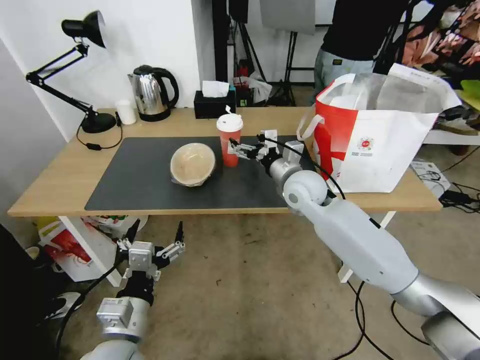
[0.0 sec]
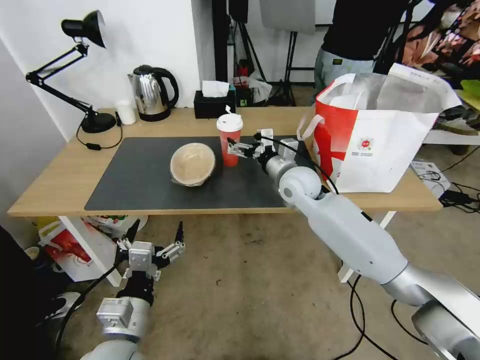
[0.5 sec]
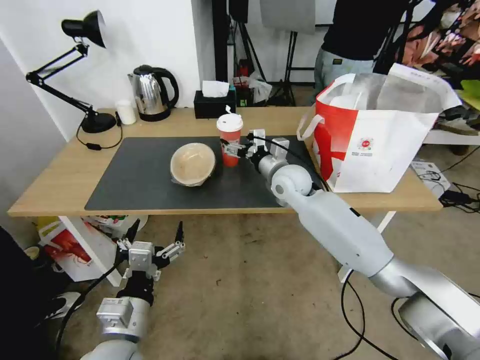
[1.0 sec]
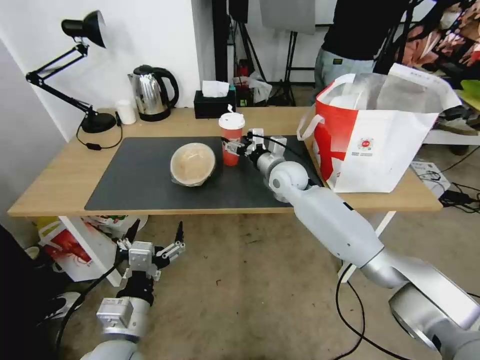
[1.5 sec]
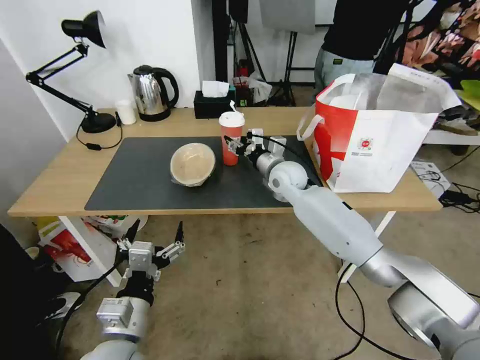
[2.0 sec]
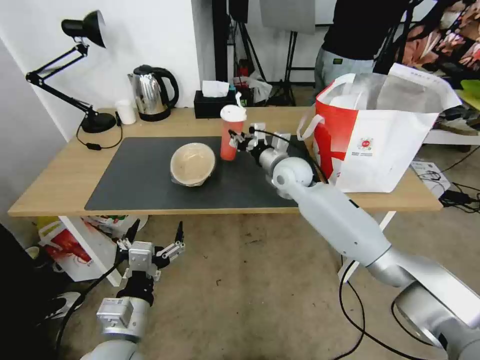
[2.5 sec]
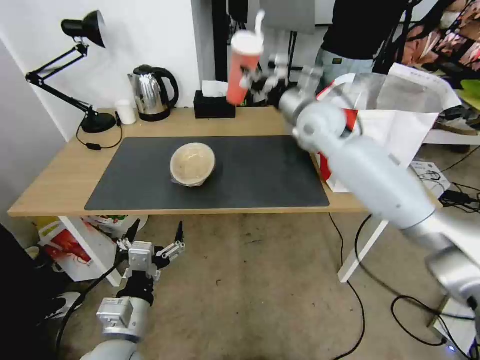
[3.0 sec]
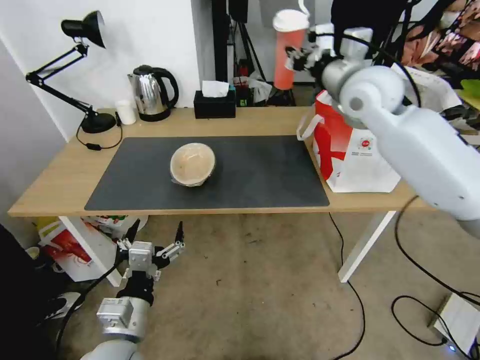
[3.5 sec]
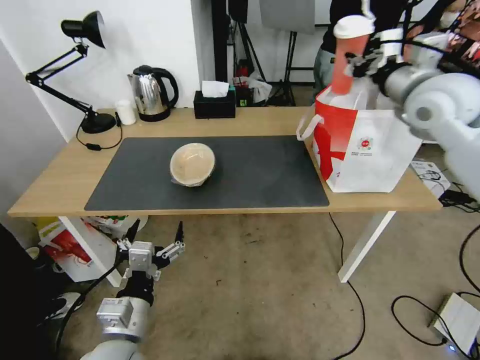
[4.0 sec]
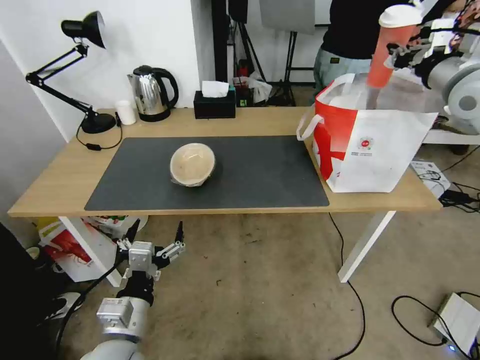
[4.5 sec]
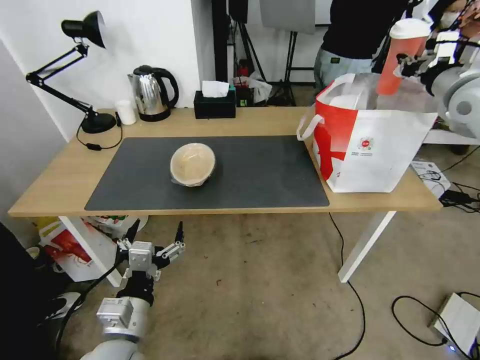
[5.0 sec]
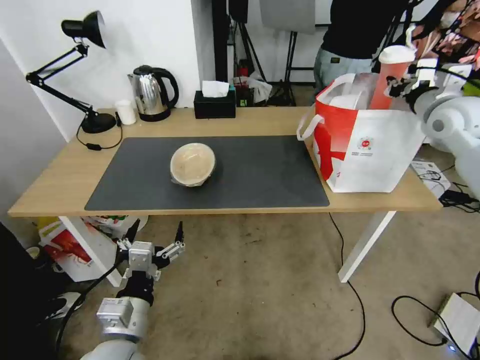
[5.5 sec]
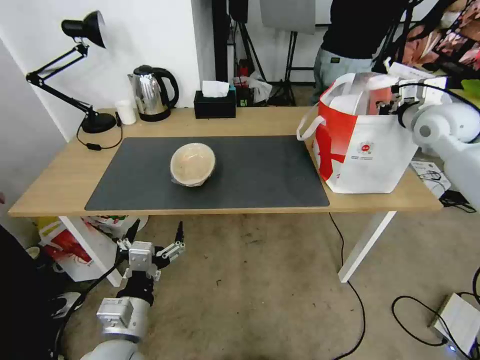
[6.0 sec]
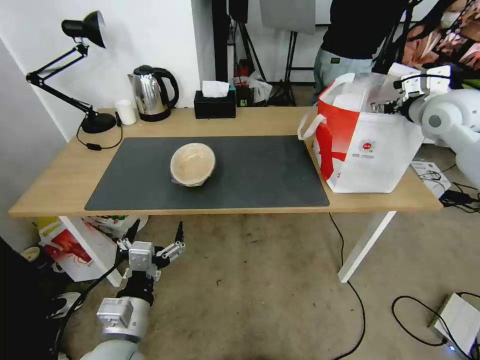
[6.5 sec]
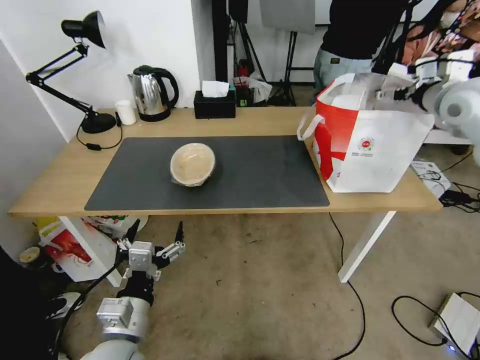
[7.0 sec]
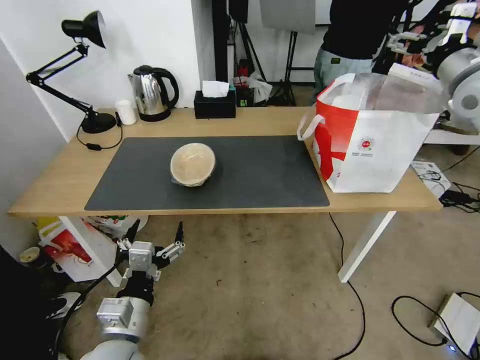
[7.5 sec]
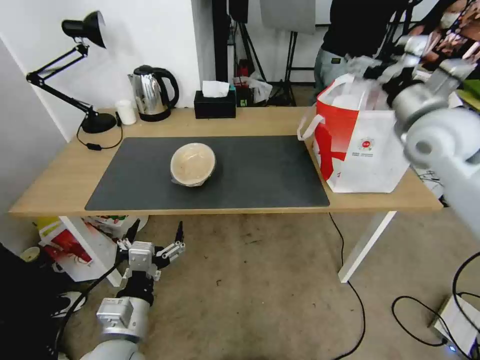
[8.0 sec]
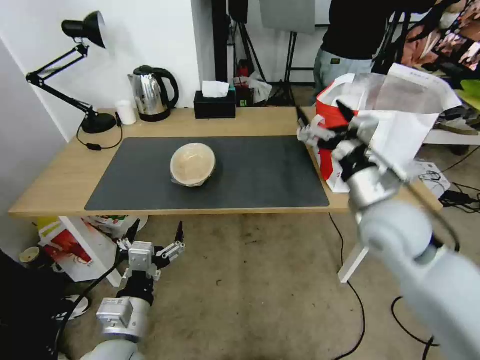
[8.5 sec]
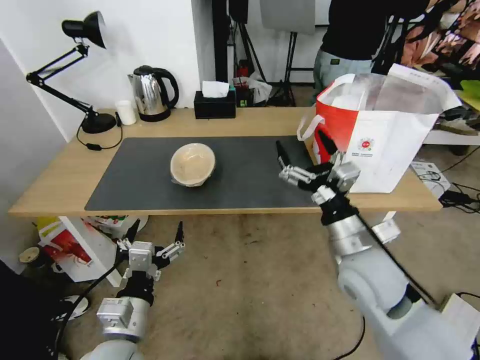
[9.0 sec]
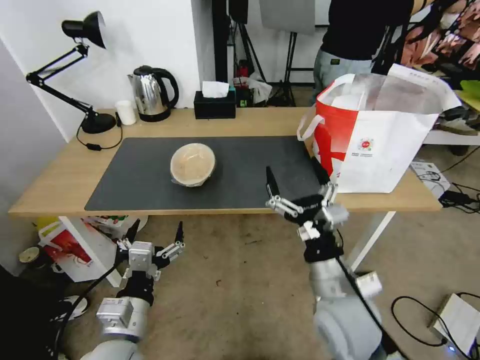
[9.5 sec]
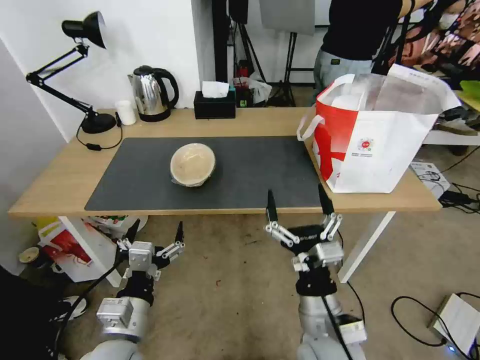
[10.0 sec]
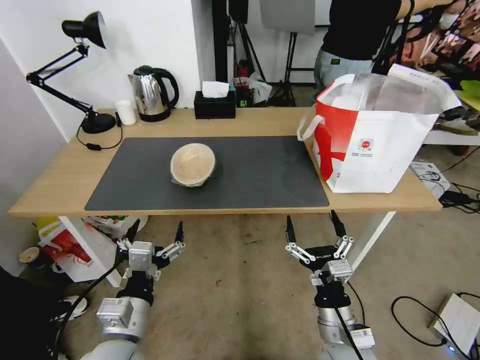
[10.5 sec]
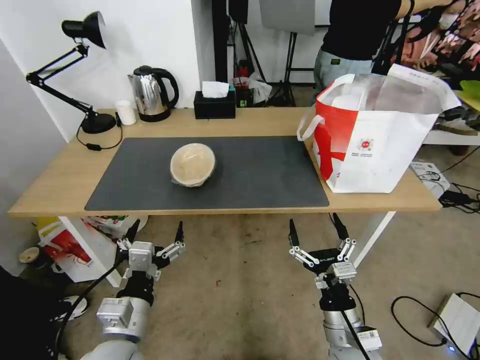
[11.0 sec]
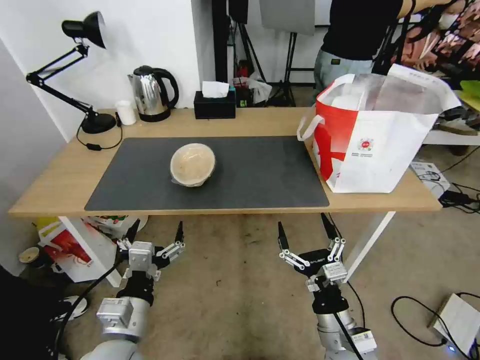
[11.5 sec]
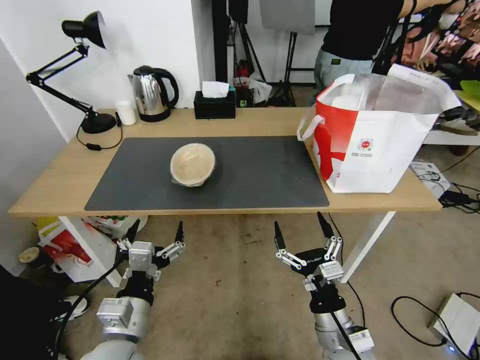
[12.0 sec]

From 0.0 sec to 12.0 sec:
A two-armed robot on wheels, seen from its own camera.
Task of the whole recording: Pick up the trash from the table and place it into the takeout bag.
From 0.0 sec to 2.0 sec: The right gripper travels forward by some 5 cm, and closes.
From 2.0 sec to 4.0 sec: The right gripper goes approximately 30 cm upward and to the right, and closes up.
From 4.0 sec to 6.0 sec: The right gripper goes approximately 10 cm to the right and downward.
From 6.0 sec to 8.0 sec: The right gripper travels backward and to the left by approximately 10 cm, and opens its fingers.
From 8.0 sec to 10.0 sec: The right gripper goes some 40 cm backward, downward and to the left.
From 10.0 sec to 12.0 sec: The right gripper travels downward and to the right by some 10 cm.

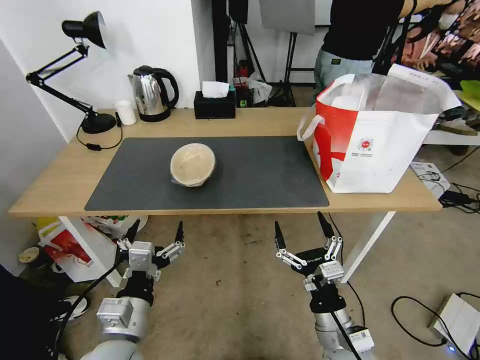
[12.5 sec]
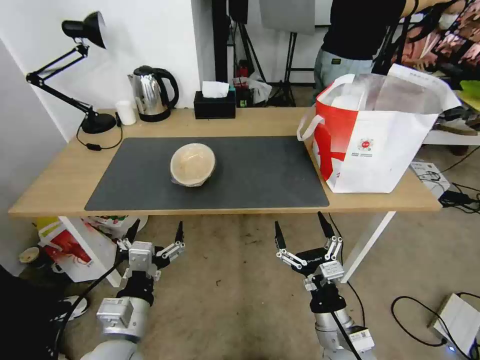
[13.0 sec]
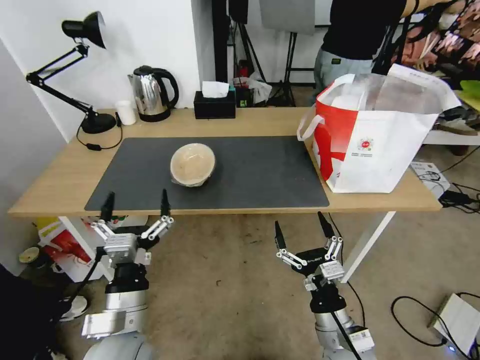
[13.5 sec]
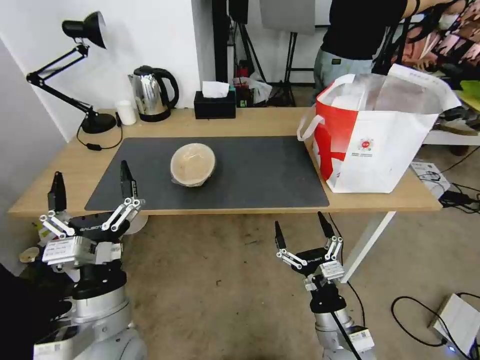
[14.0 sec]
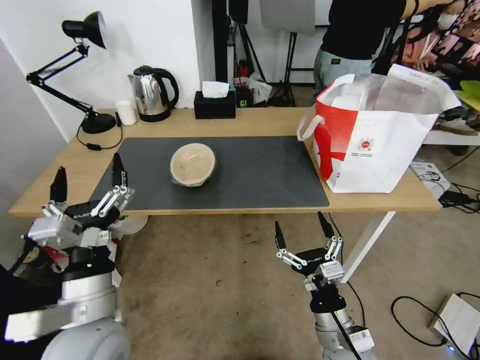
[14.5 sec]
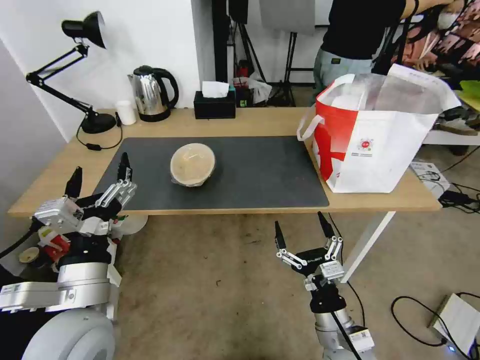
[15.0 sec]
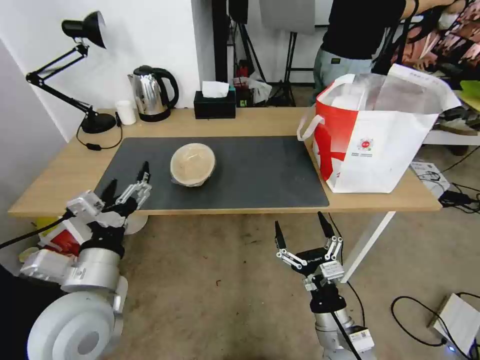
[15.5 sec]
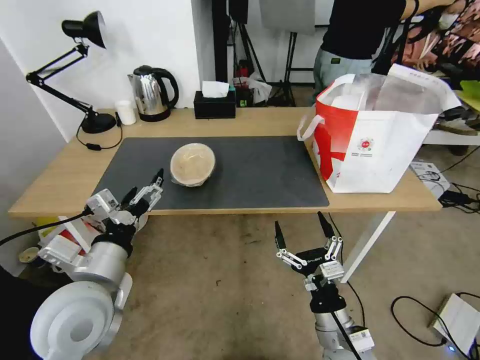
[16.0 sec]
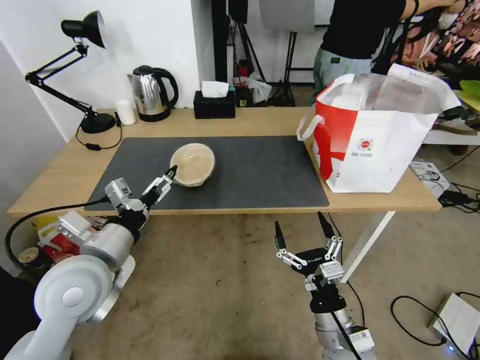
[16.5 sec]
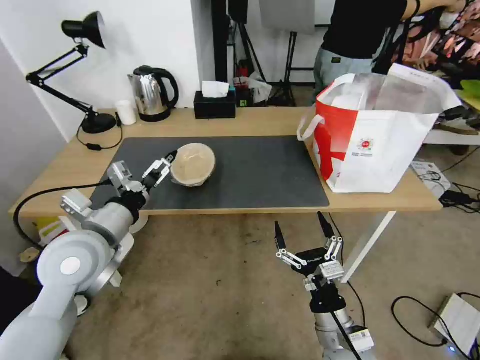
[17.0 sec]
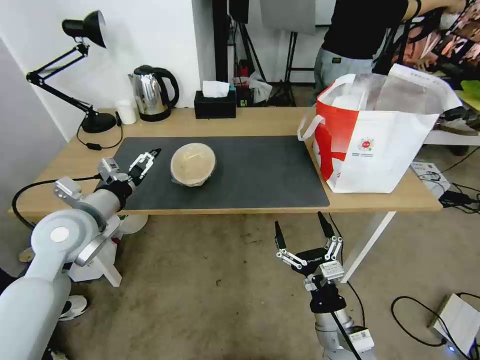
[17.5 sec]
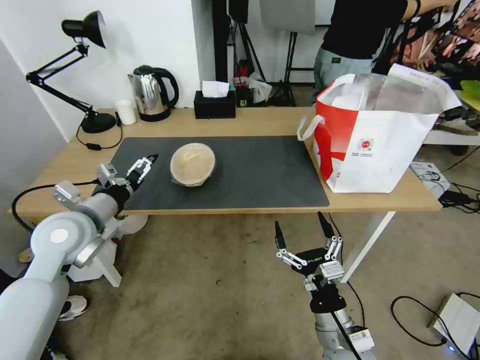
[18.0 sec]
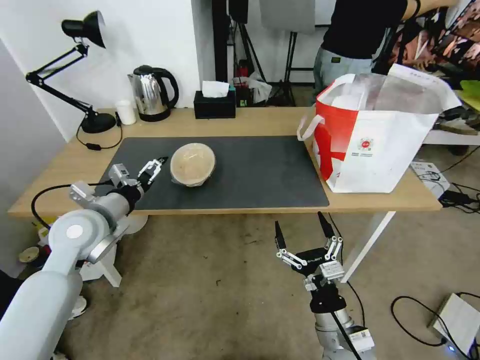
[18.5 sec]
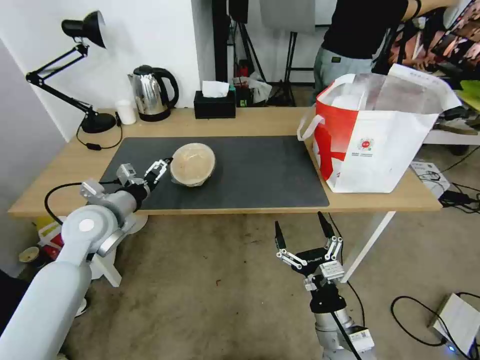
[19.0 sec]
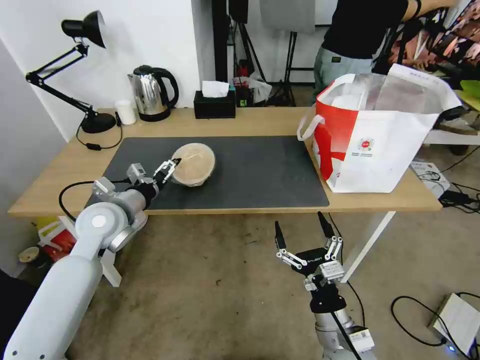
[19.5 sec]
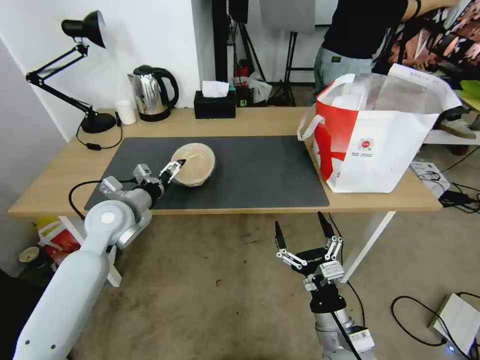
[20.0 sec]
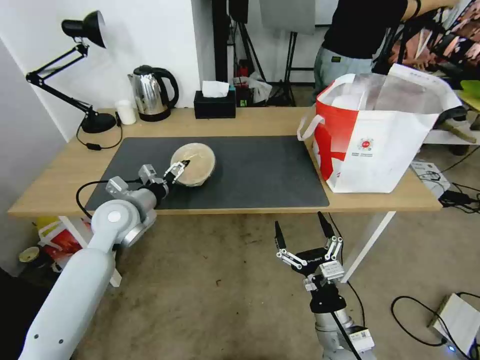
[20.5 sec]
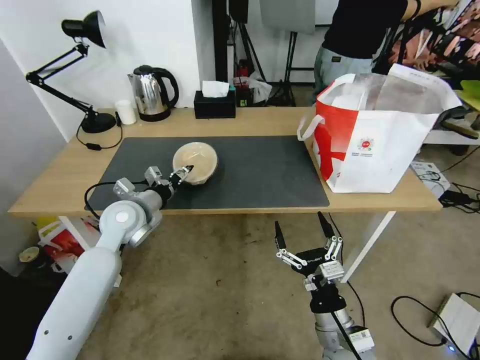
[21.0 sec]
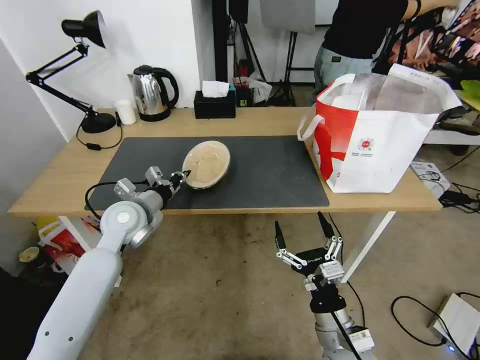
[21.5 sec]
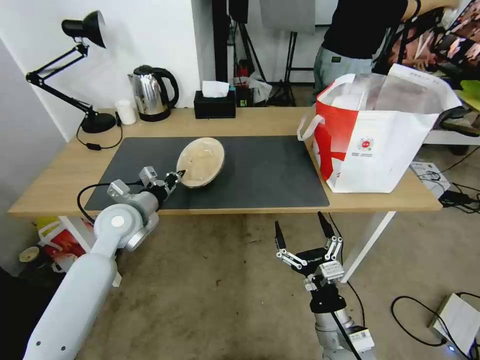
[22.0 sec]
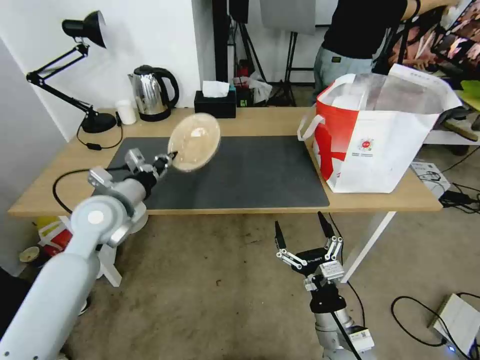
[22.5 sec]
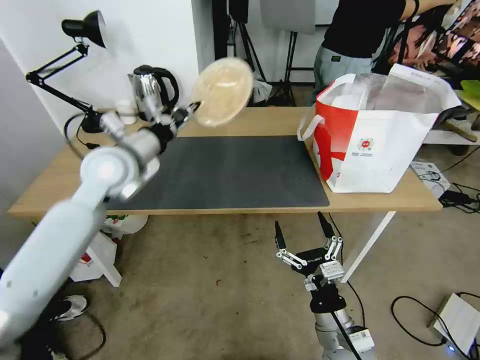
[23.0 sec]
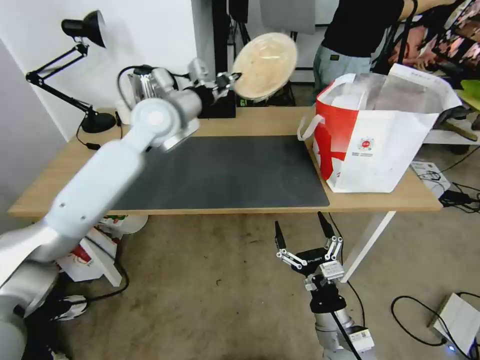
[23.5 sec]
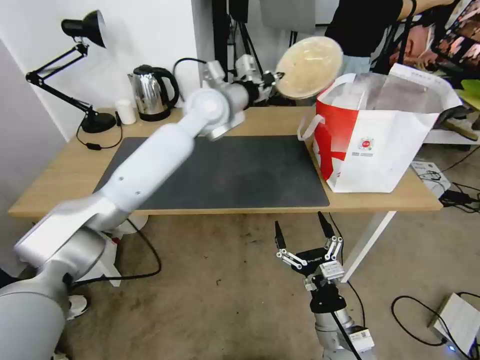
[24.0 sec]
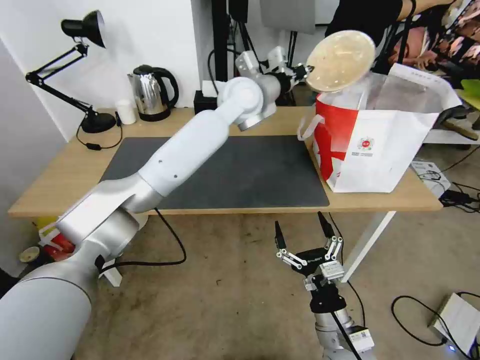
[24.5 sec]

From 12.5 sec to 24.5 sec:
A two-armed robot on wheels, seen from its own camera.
Task of the whole recording: Pick up the trash from the table and place it into the takeout bag.
From 12.5 sec to 14.5 sec: The left gripper is displaced upward by approximately 5 cm.
From 14.5 sec to 16.5 sec: The left gripper shifts about 10 cm forward.
From 16.5 sec to 18.5 sec: The left gripper is displaced forward and to the left by about 10 cm.
From 18.5 sec to 20.5 sec: The left gripper heads forward, covering about 5 cm.
From 20.5 sec to 22.5 sec: The left gripper changes place by about 5 cm, and closes.
From 22.5 sec to 24.5 sec: The left gripper moves to the right, forward and upward, roughly 35 cm.

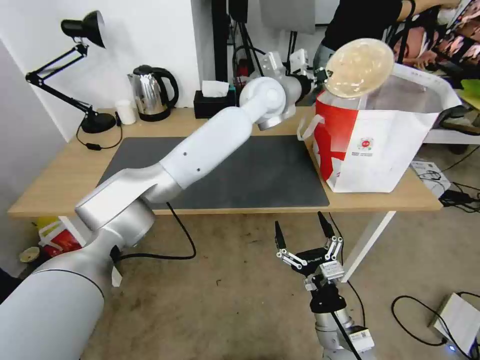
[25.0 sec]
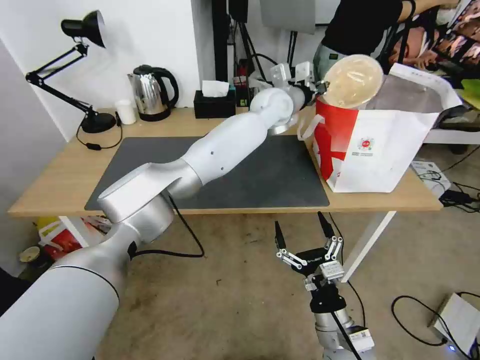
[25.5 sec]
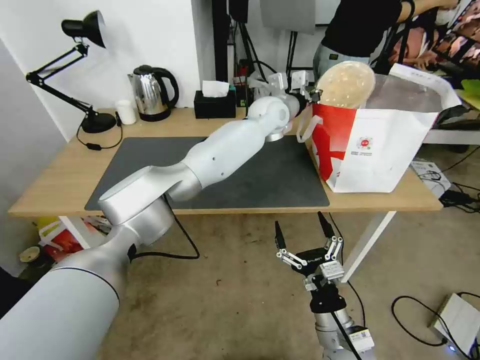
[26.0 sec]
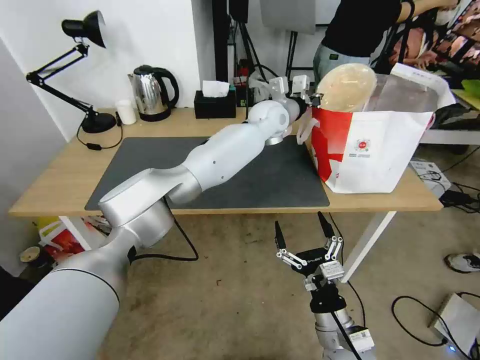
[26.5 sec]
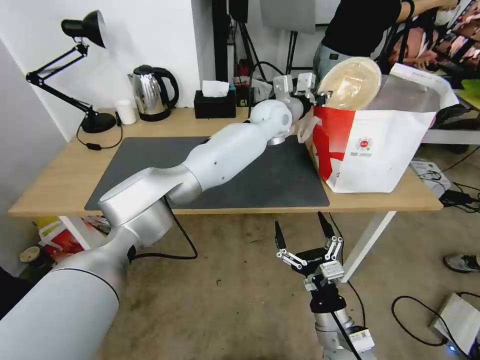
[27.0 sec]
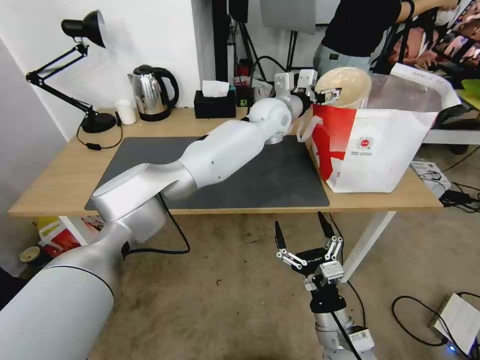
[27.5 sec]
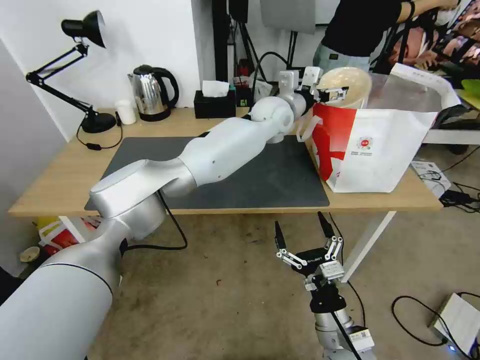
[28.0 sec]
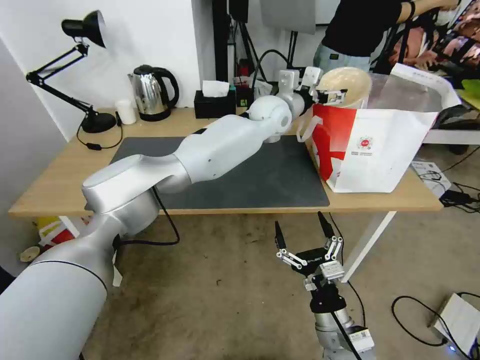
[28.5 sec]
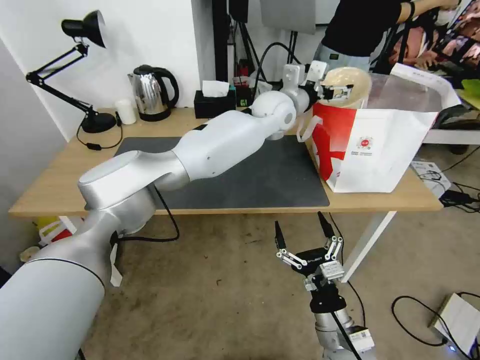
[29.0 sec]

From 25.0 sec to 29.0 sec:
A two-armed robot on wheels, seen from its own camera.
Task of the whole recording: Pick up the trash from the table and place it into the takeout bag.
From 25.0 sec to 27.0 sec: The left gripper travels downward by roughly 5 cm.
From 27.0 sec to 29.0 sec: The left gripper opens.
